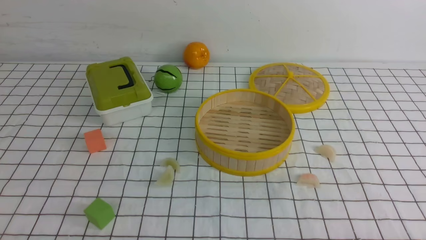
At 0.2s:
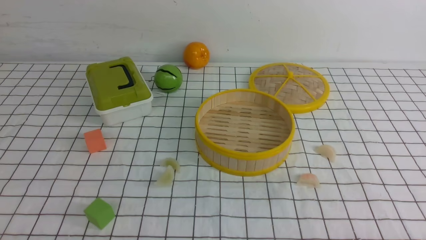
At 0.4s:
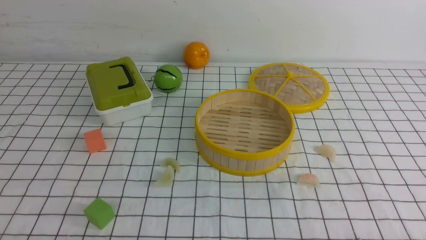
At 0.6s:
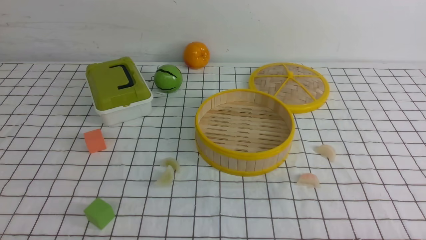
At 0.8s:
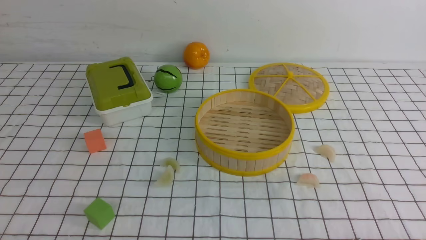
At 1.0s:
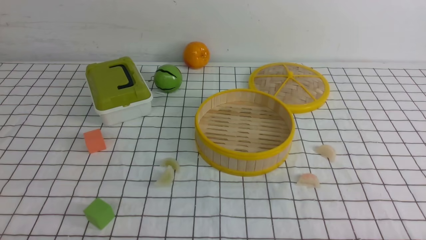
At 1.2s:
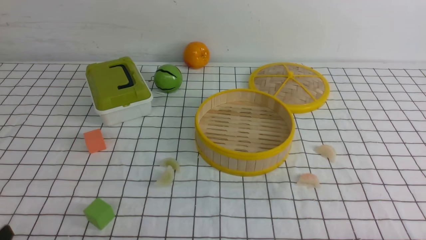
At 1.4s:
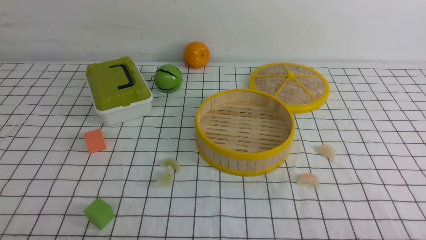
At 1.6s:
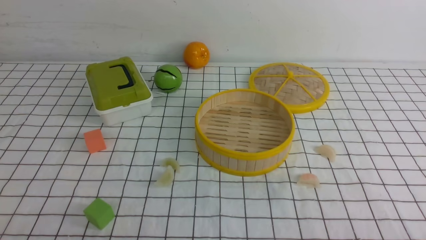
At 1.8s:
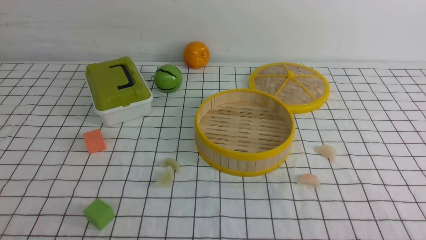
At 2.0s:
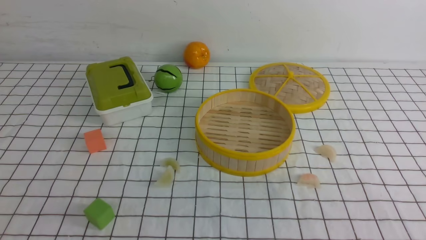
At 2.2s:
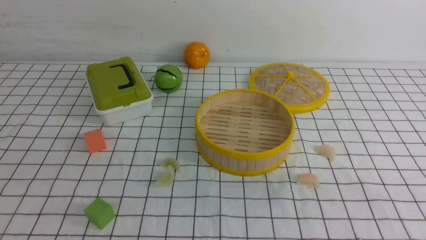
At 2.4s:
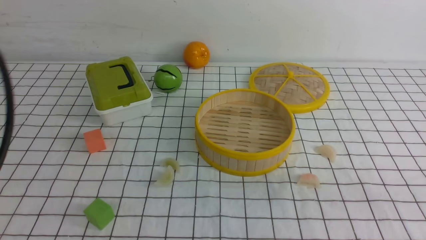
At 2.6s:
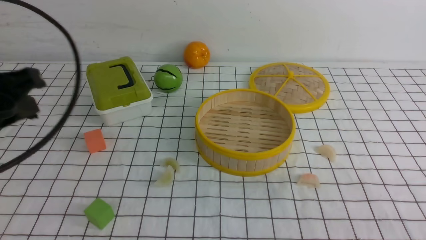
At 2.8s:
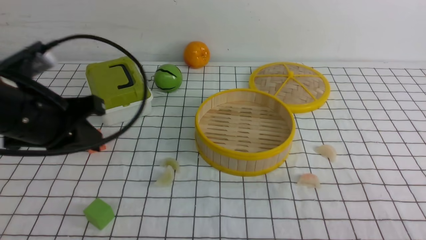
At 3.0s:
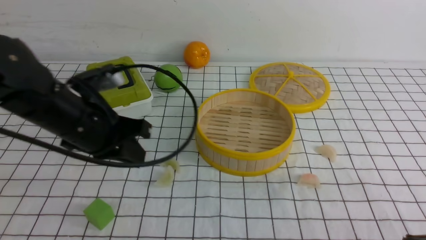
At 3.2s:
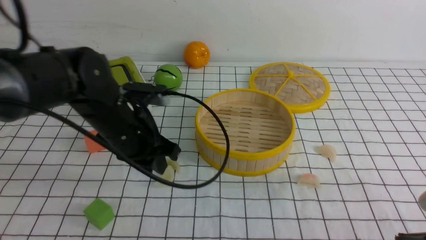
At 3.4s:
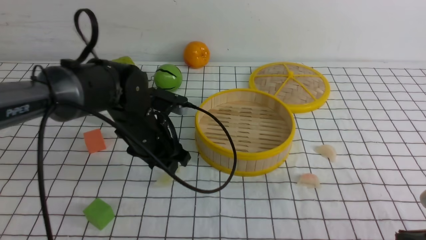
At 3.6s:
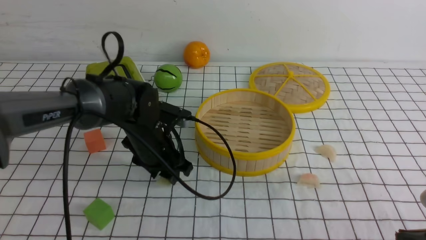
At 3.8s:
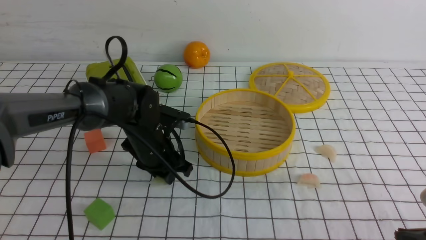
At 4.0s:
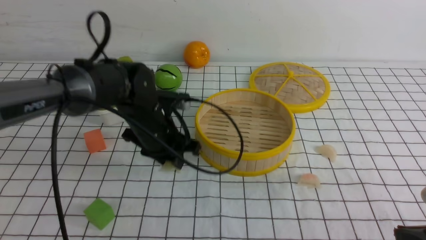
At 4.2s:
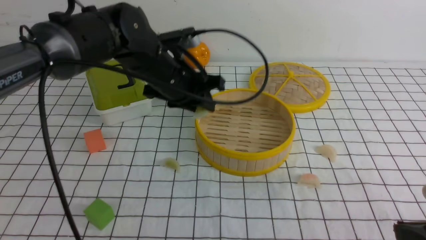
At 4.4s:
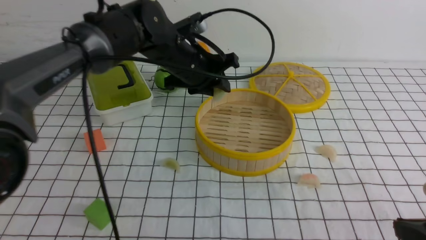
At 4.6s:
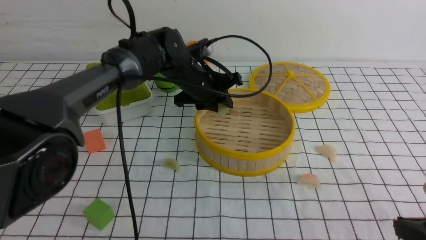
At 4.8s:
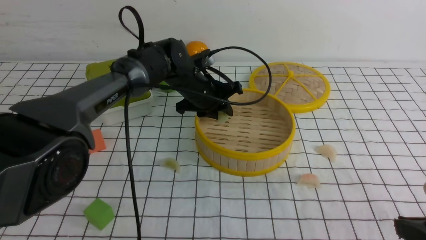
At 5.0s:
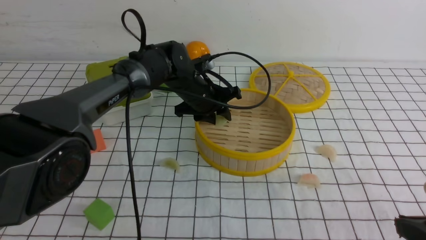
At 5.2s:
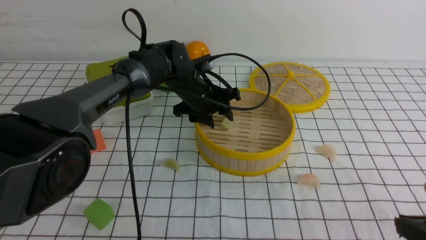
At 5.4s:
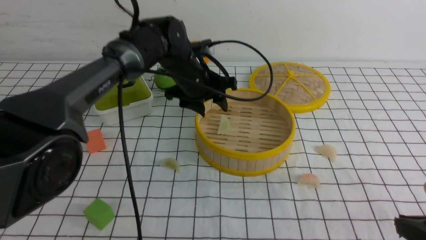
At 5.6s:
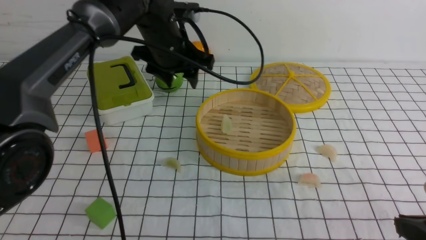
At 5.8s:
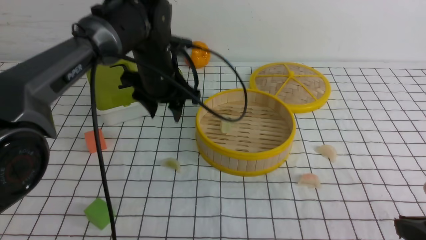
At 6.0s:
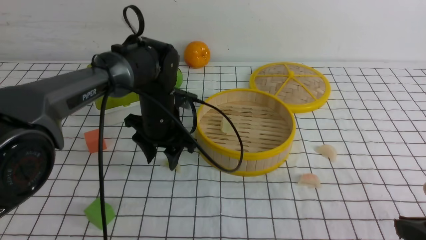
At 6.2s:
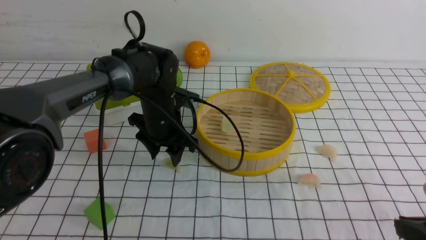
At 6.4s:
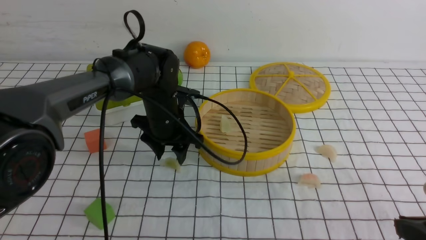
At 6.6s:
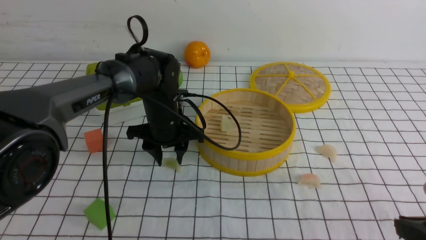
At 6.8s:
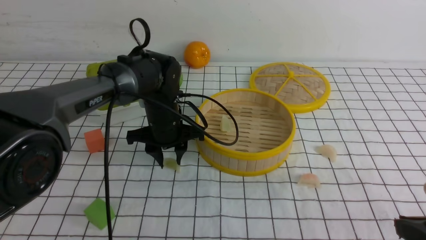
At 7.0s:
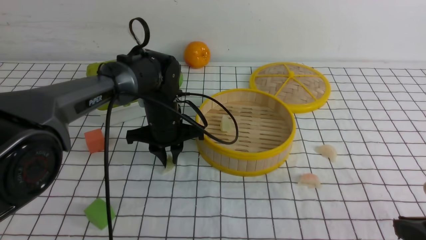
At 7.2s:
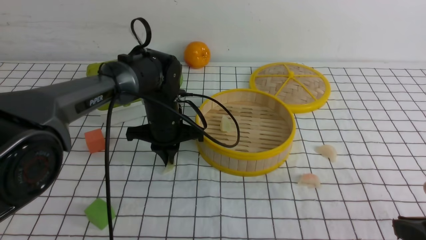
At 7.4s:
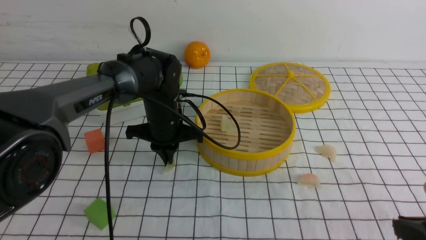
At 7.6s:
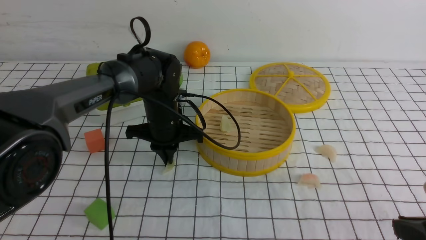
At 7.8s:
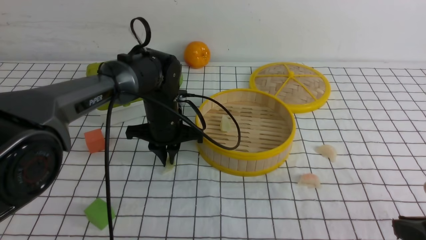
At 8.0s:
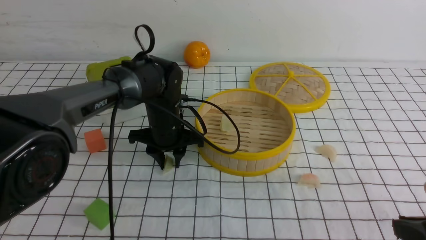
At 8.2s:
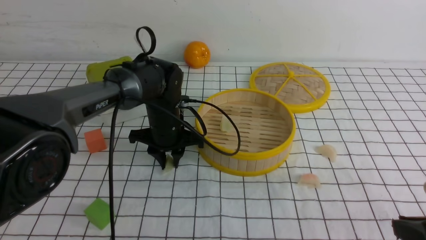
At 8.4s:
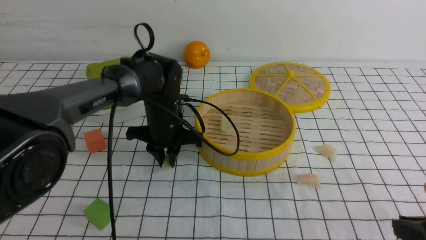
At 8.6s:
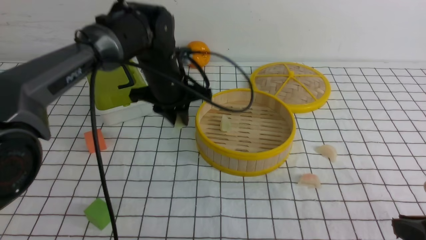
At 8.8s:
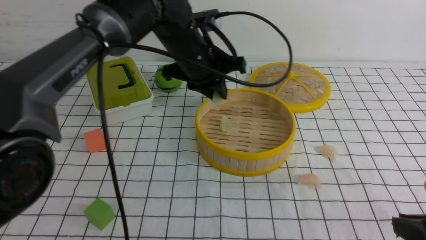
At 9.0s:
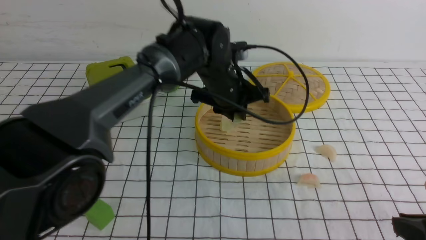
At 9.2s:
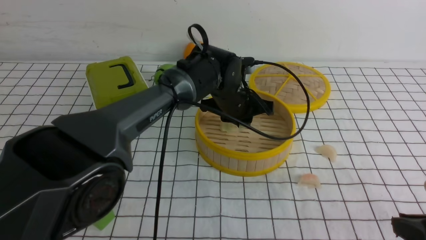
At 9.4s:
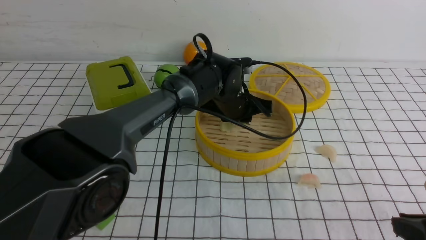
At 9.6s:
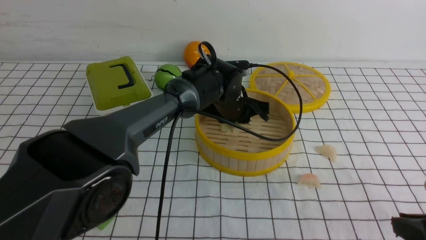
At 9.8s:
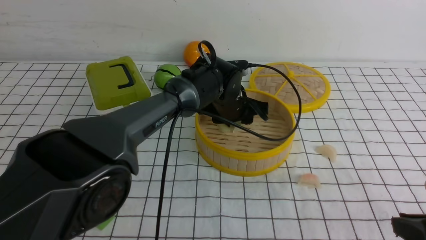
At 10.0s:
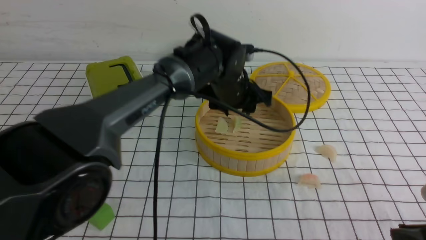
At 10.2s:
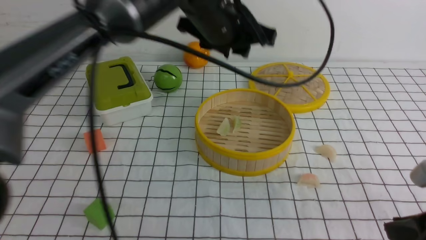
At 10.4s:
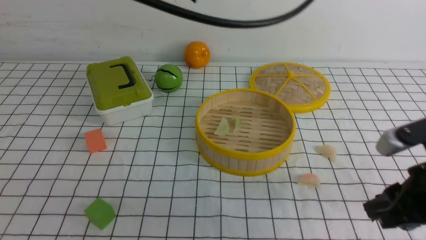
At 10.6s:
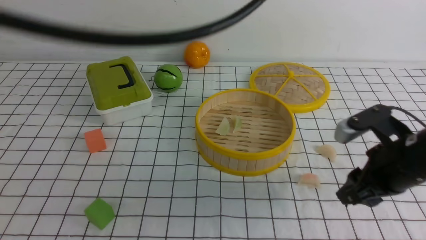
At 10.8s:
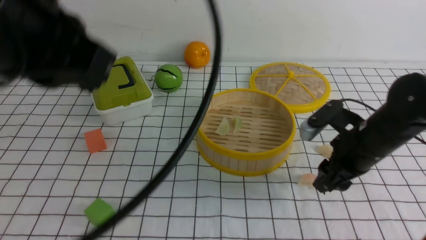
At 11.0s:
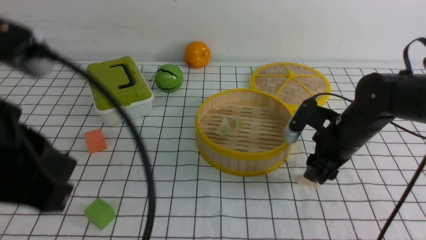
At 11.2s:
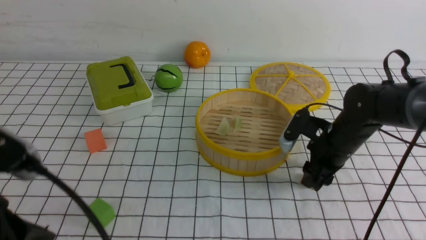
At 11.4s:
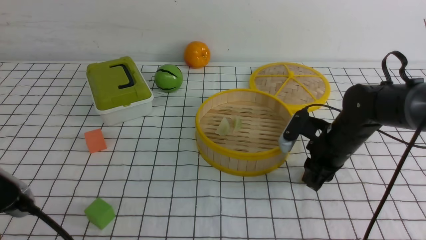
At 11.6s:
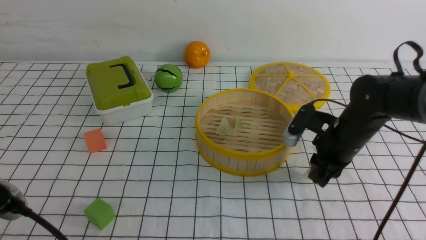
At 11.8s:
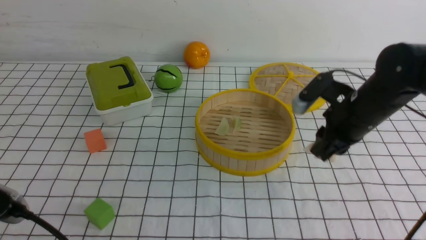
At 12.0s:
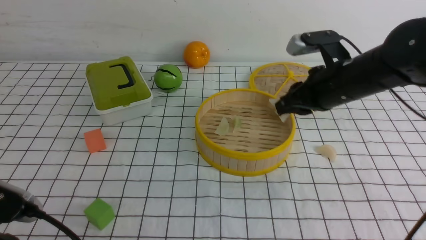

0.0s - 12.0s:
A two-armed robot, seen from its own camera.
Task of the whole recording: put the dumplings into the steamer on the table with the white tablecloth.
Step, 0.0s - 4.2s: use the left arm to grab a dumpling.
Step, 4.6s - 5.8s: use the left arm to put the dumpling into the steamer.
Step, 6.0s - 8.4s: use the left arm to grab a dumpling.
Step, 8.6s - 10.4s: use the left arm to put the dumpling into the steamer.
Step, 10.6s - 12.0s: use the right arm to grab a dumpling.
1.6s - 3.0s: The right gripper travels forward by about 5 cm, while the left gripper goes roughly 25 cm forward.
3.0s - 4.4s: The left gripper goes about 20 cm forward and to the right.
4.4s - 6.0s: The left gripper moves up and down over some 10 cm, changing direction 2 times, and opens up.
6.0s - 7.6s: The left gripper closes up.
7.6s - 9.0s: The left gripper shifts some 10 cm to the right and upward.
9.0s - 10.4s: The right gripper goes some 5 cm forward, and opens its fingers, while the left gripper heads upward and backward, covering about 25 cm, and opens and closes again.
10.4s - 12.0s: The right gripper shifts some 20 cm forward, while the left gripper moves downward, backward and to the left, approximately 35 cm.

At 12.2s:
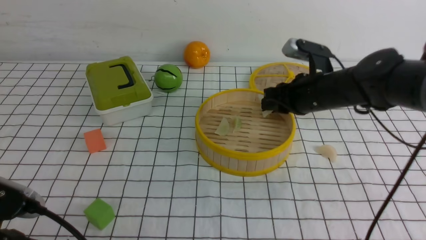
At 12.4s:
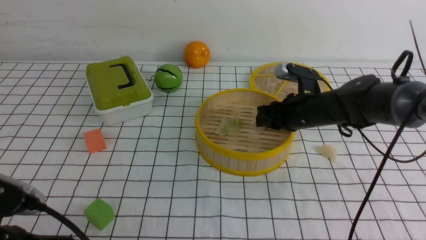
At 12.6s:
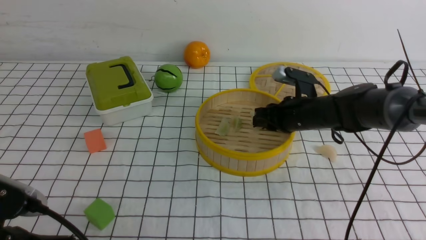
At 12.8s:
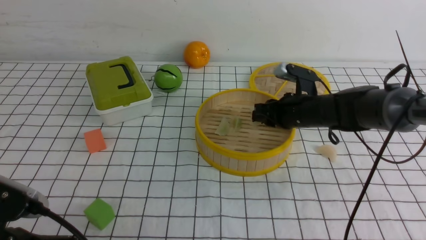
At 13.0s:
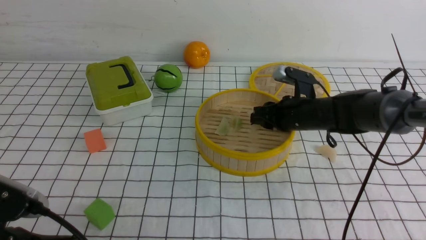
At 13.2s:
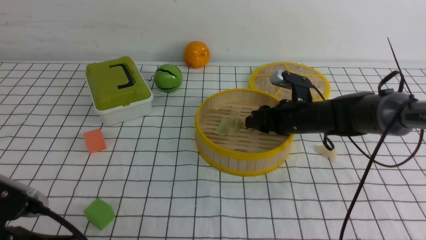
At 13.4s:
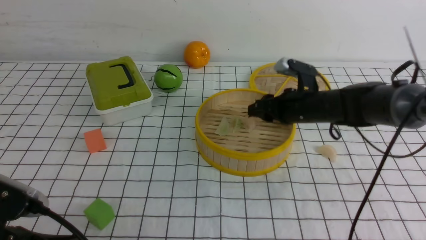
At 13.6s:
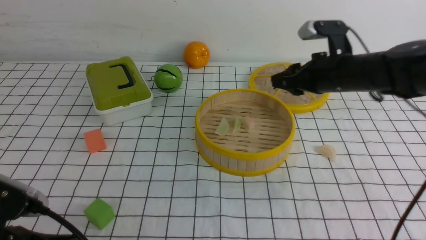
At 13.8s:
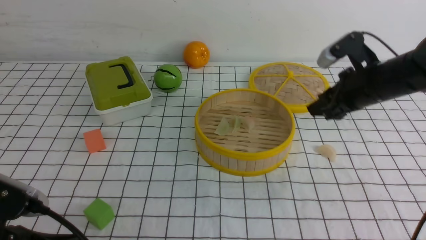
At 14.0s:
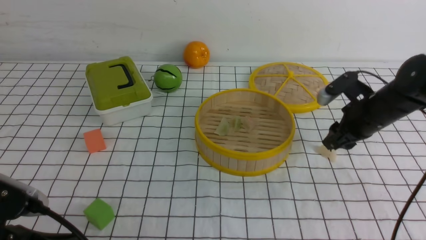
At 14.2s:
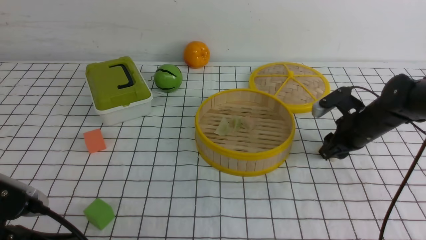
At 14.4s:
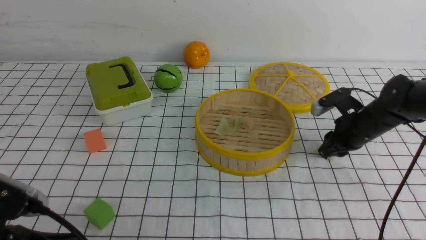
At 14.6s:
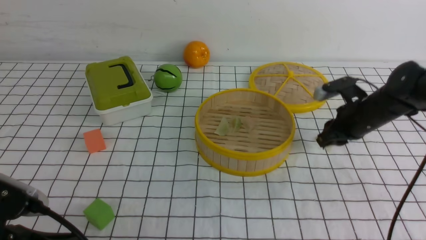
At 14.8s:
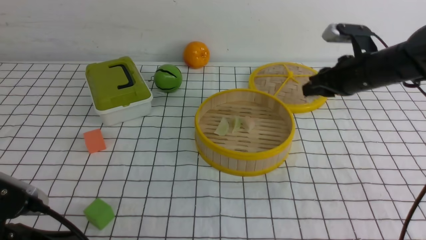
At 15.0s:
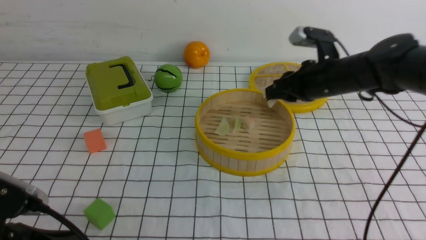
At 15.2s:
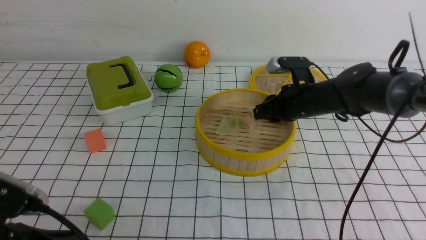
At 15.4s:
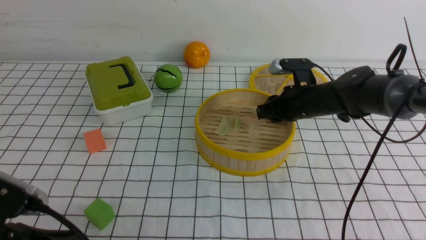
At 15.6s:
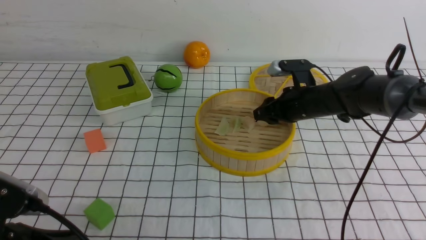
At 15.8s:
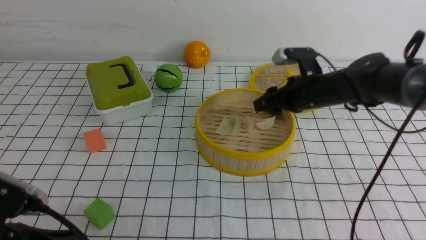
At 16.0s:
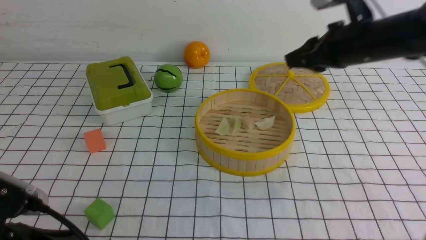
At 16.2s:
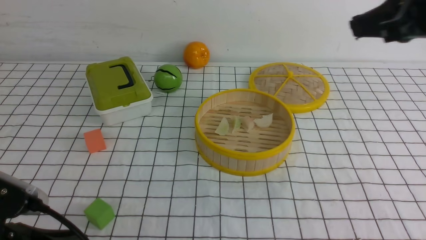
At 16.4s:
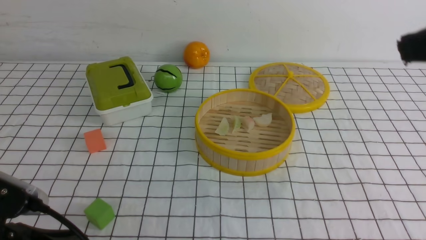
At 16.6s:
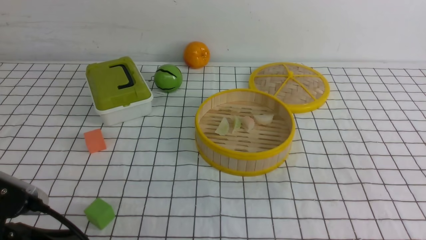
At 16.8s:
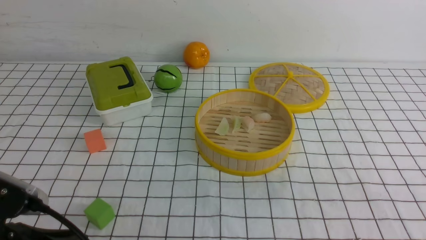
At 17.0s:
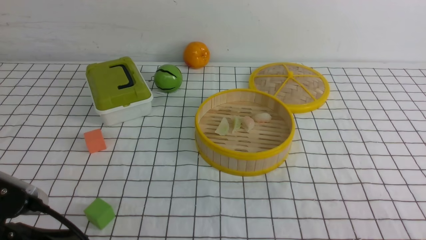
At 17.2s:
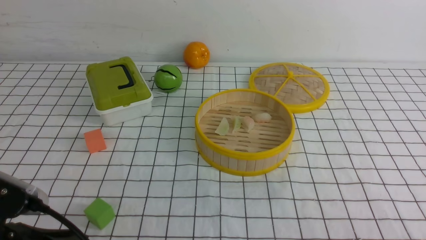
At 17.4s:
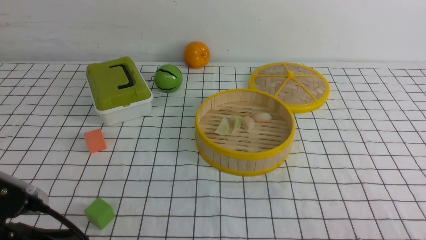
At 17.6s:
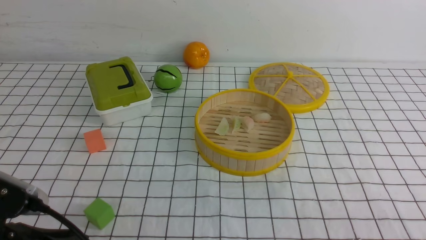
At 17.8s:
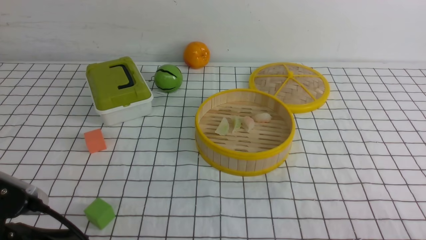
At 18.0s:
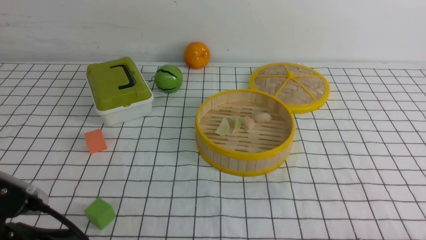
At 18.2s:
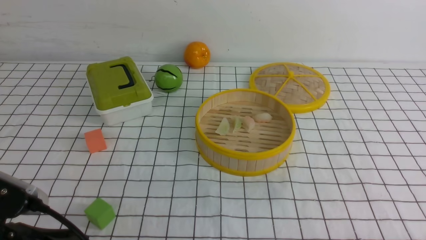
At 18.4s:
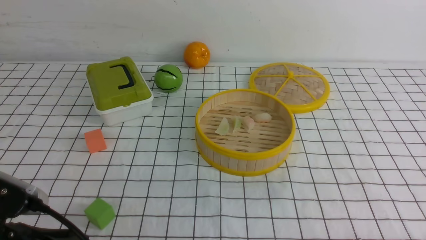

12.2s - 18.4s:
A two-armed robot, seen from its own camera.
Task of the whole recording: put the dumplings into the steamer on the table with the white tablecloth.
Step, 12.2s - 14.0s: use the right arm to put the dumpling into the steamer.
Step, 14.2s - 15.0s: use the right arm to grab a dumpling.
Step, 15.2s - 16.2s: use the right arm to put the dumpling into the steamer.
12.2s - 13.8s: The right gripper travels to the right by approximately 5 cm, travels downward and back again, roughly 5 cm each way, and opens up.
13.8s - 15.4s: The right gripper is displaced to the left and downward by approximately 10 cm.
15.4s - 16.8s: The right gripper shifts roughly 35 cm backward, and closes up.
